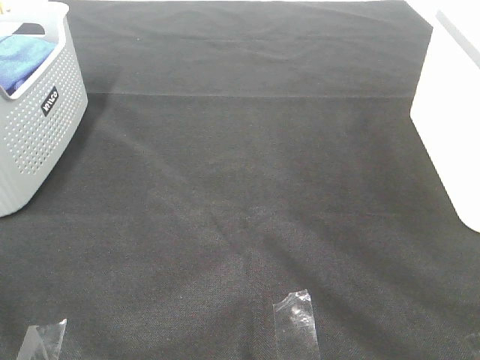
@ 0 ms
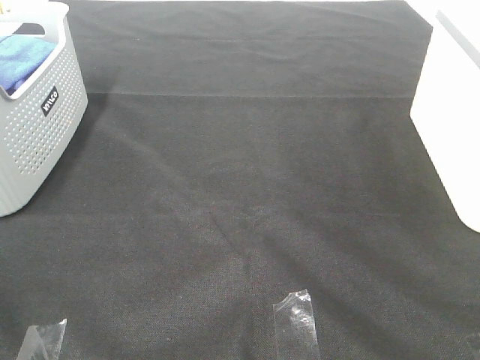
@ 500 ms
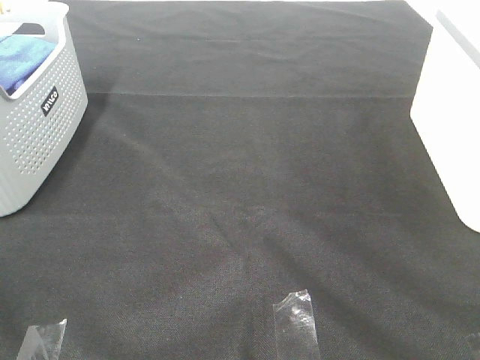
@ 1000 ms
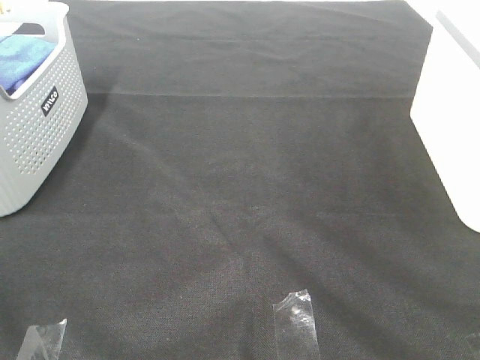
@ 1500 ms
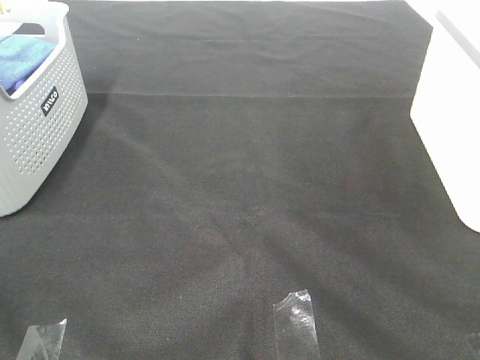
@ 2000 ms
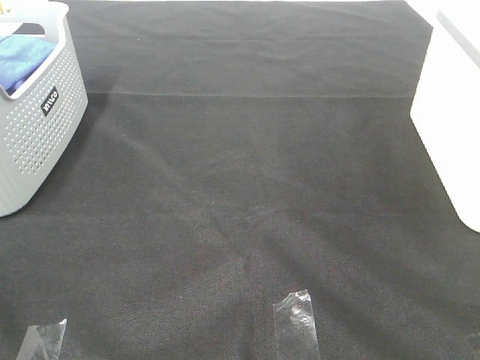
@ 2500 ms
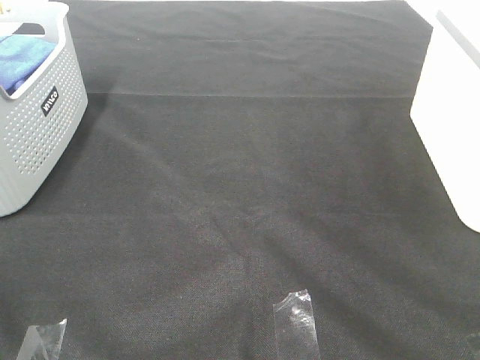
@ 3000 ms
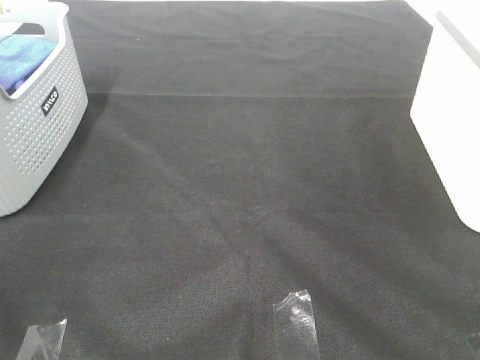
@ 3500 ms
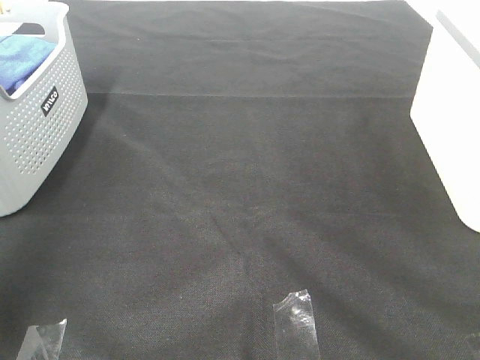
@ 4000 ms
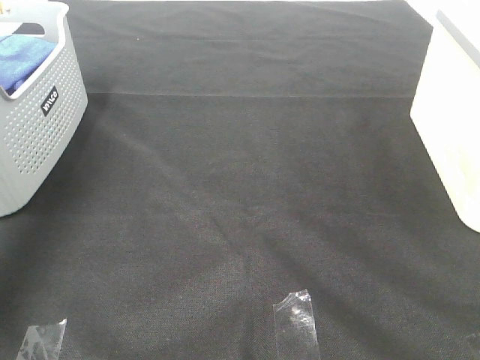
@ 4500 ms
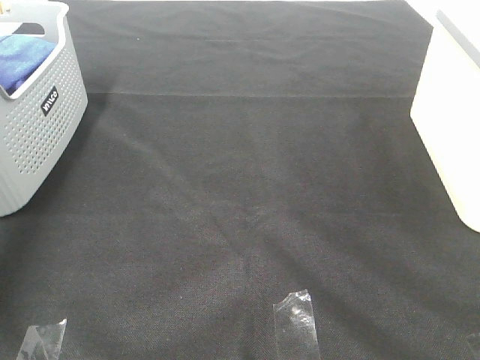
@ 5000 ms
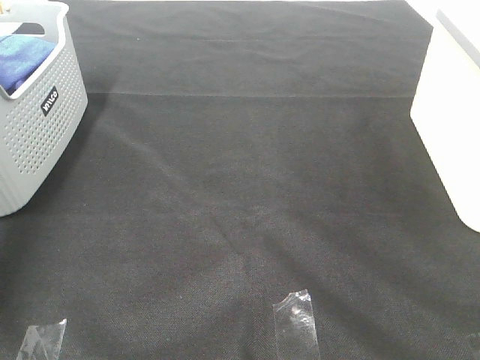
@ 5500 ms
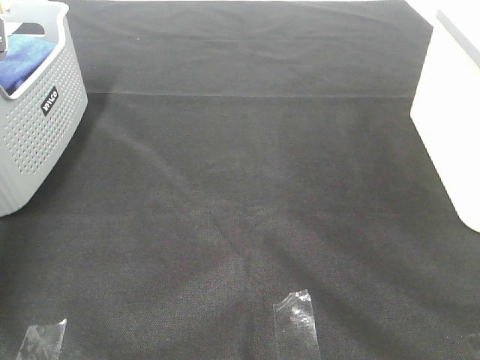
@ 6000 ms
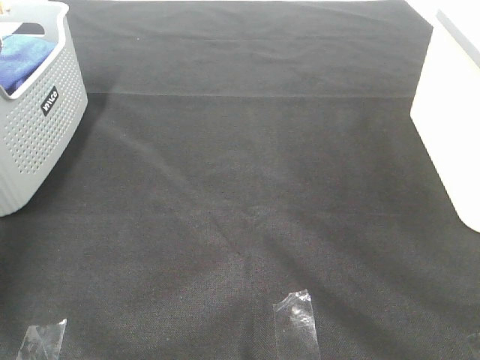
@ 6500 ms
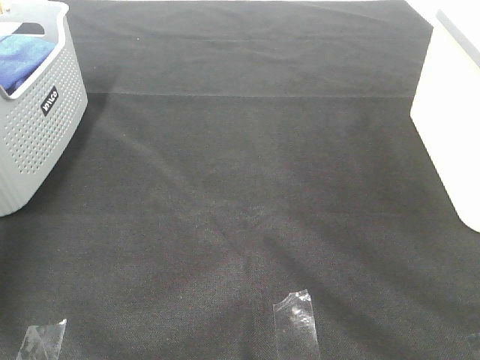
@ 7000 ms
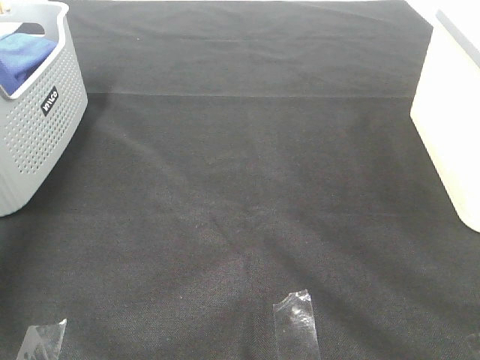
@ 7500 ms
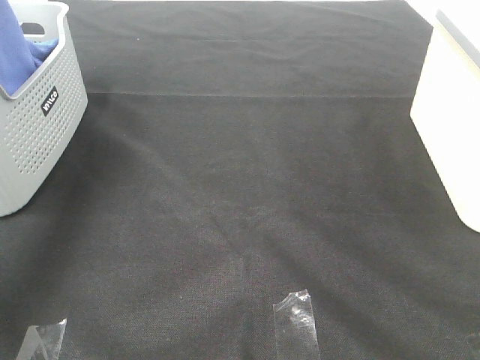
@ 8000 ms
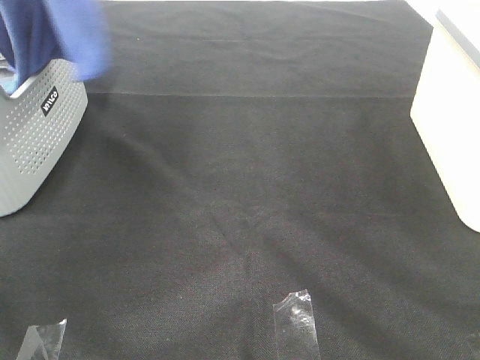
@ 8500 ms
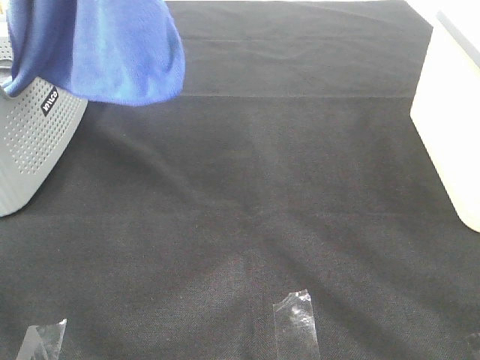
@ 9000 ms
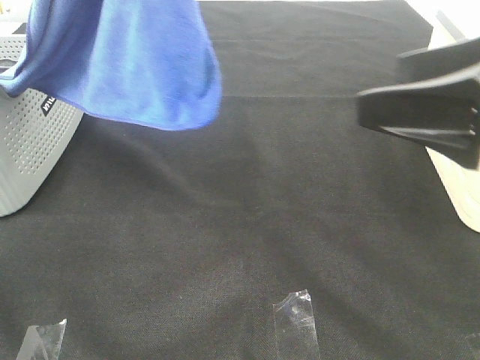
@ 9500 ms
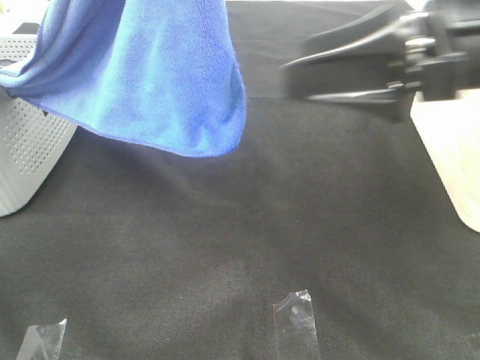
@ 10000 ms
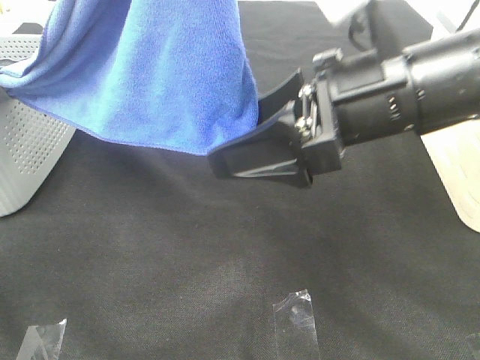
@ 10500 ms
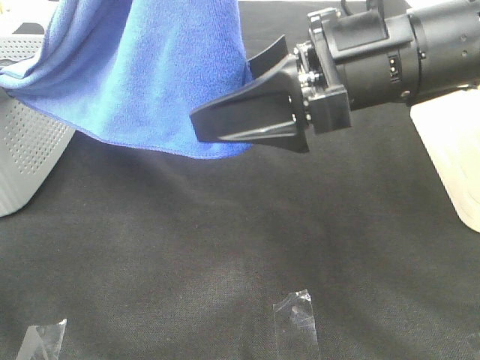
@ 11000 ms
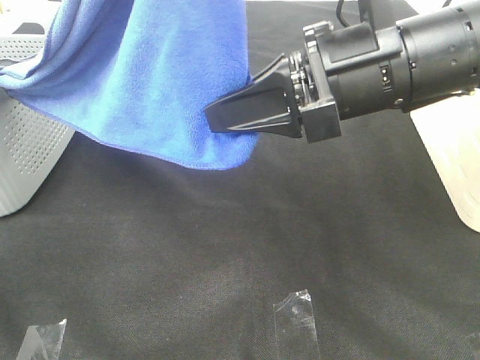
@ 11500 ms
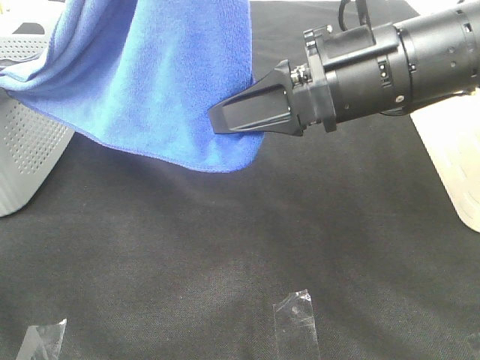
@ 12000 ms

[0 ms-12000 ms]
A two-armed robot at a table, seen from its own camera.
Task of the whole recording: Remove the towel and place it.
Step, 8500 ms to 11000 ms: Right hand: grab a corner of the blue towel and straighten it.
0 ms to 2000 ms: Both grippers stay put.
2000 ms to 4000 ms: The left gripper is displaced forward and upward by about 20 cm.
4000 ms to 6000 ms: The left gripper moves forward and downward, some 35 cm.
6000 ms to 8000 ms: The left gripper heads upward, covering roughly 30 cm, and closes.
8000 ms to 10000 ms: The right gripper shifts about 25 cm forward and to the left. The left gripper goes approximately 25 cm to the right and backward.
10000 ms to 12000 ms: The right gripper shifts about 5 cm to the left, and closes up.

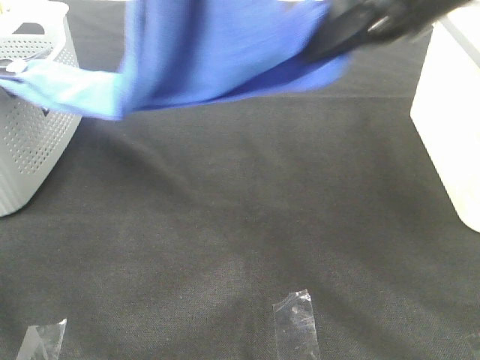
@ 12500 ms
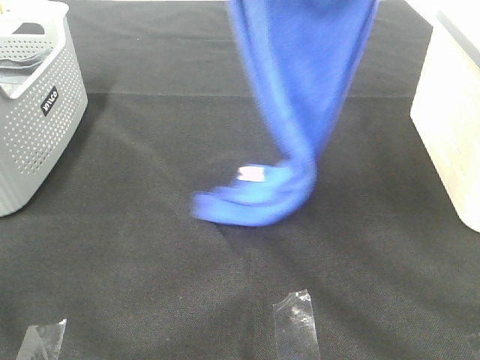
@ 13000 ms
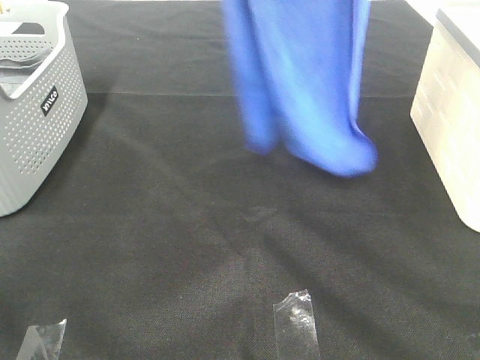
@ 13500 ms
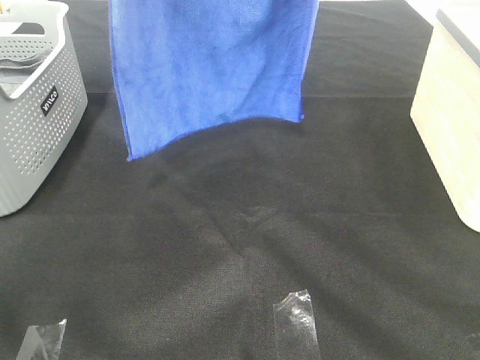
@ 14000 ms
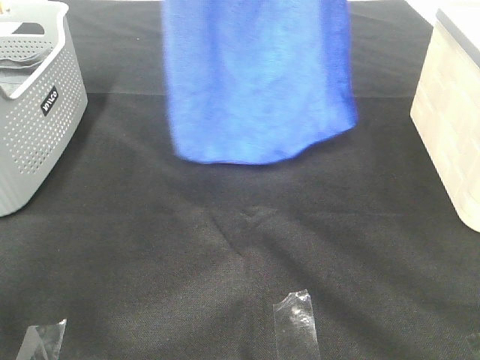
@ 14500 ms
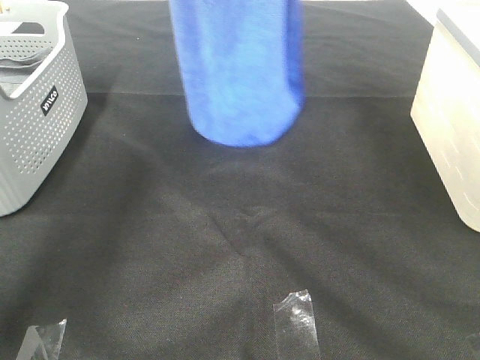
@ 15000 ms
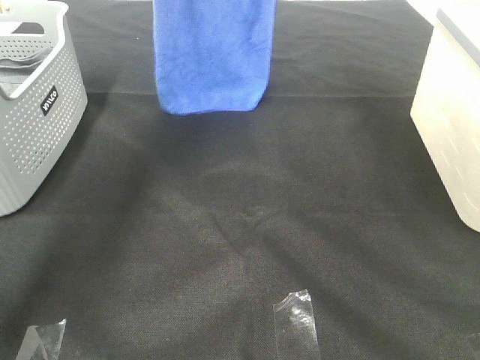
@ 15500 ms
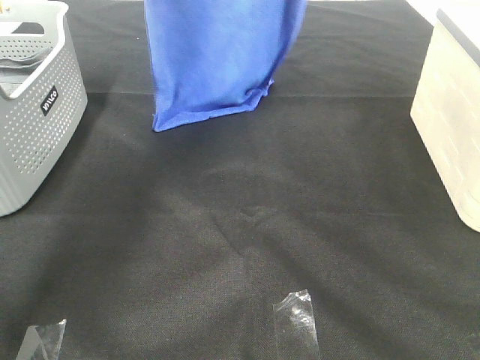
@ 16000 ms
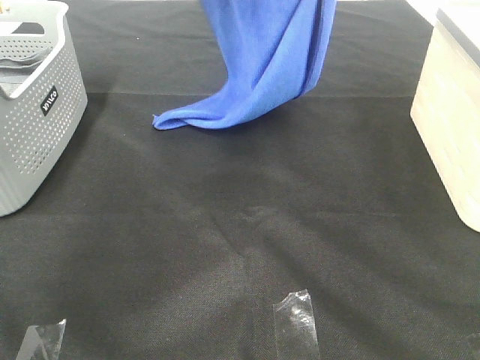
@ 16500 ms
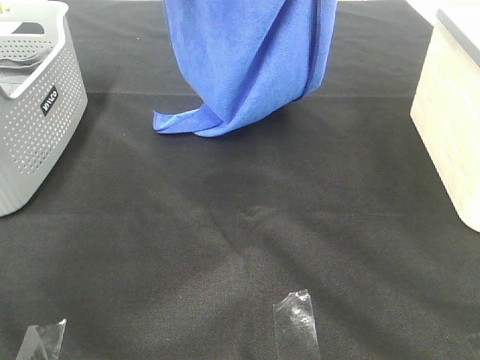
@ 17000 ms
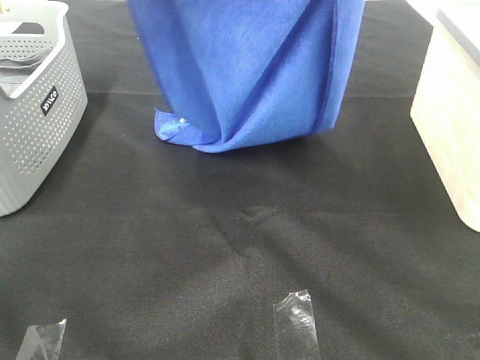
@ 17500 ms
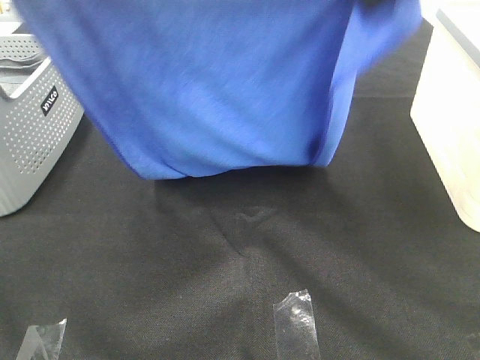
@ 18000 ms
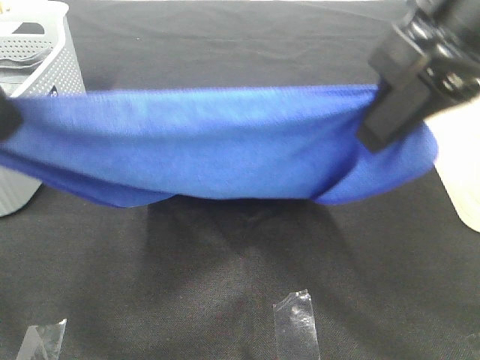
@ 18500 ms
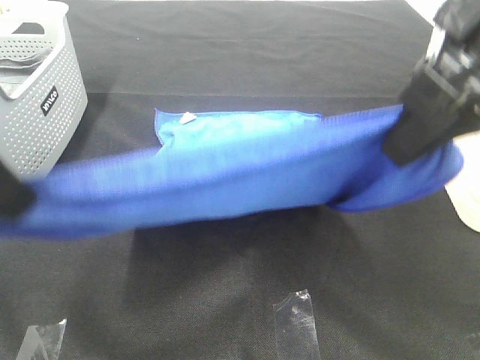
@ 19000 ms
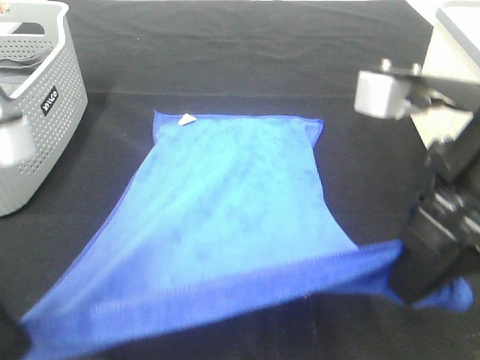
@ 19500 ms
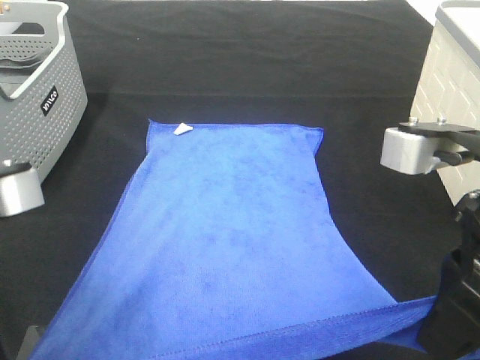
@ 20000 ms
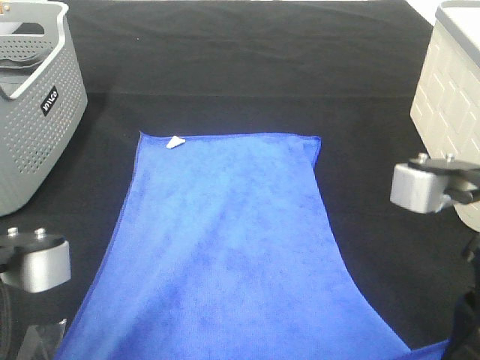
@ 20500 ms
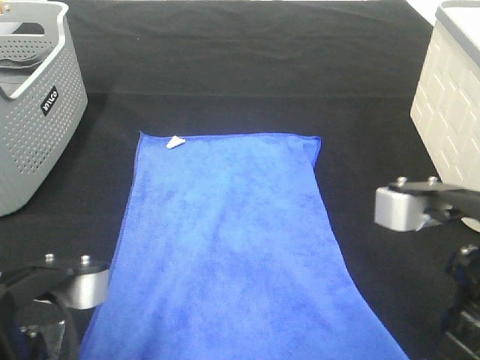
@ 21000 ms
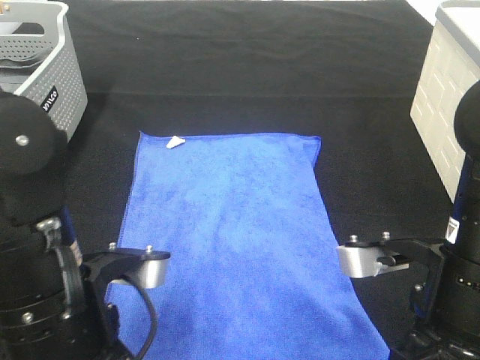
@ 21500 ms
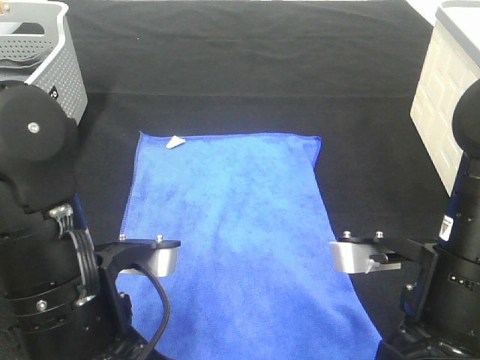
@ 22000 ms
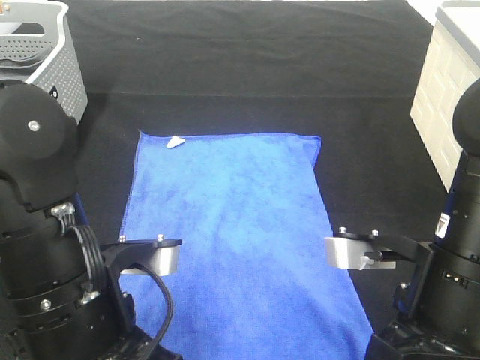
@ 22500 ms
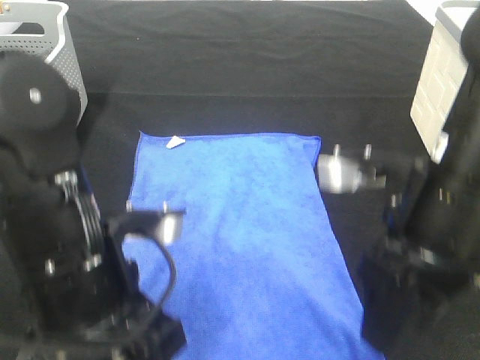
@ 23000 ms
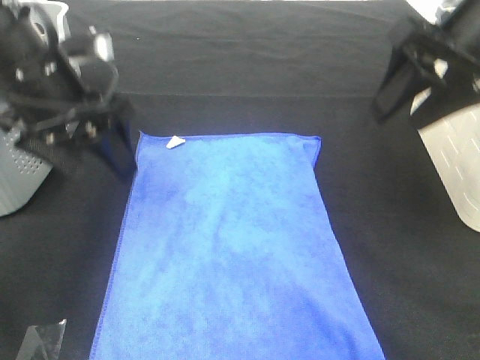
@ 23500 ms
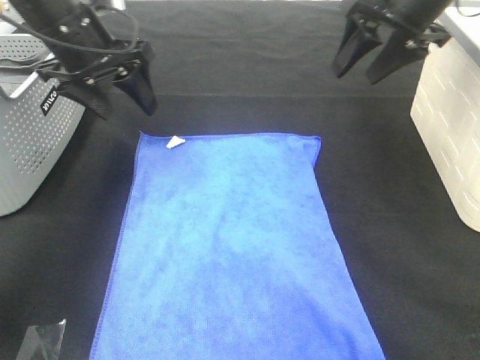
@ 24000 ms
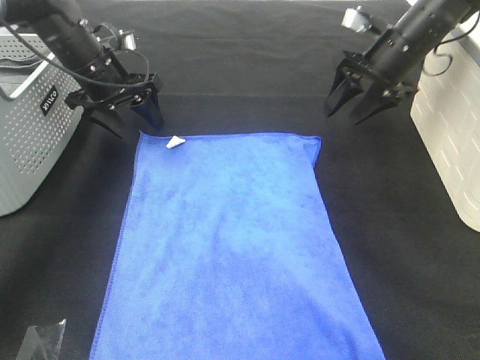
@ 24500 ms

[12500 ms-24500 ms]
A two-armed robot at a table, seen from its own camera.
Task of the whole recording: Remove the towel and place it.
Step, 12500 ms to 18000 ms: Left hand: spread the blue towel flat on the table.
Step, 12500 ms to 18000 ms: Right hand: spread the blue towel flat on the table.
12500 ms to 14500 ms: The left gripper heads forward, covering about 20 cm, while the right gripper travels upward and forward by about 20 cm.
14500 ms to 16500 ms: The right gripper goes some 5 cm downward, and moves some 10 cm forward and comes back. The left gripper travels downward and to the right by about 10 cm, and goes forward and returns, some 10 cm each way.
16500 ms to 18500 ms: The left gripper is displaced backward and to the left by approximately 30 cm; the right gripper is displaced backward and downward by roughly 25 cm.
18500 ms to 20500 ms: The two grippers go some 15 cm downward and backward.
20500 ms to 22500 ms: The right gripper shifts about 5 cm downward, and opens up, while the left gripper is displaced downward, forward and to the right by about 10 cm, and opens up.
22500 ms to 24500 ms: The grippers both shift forward by about 35 cm.

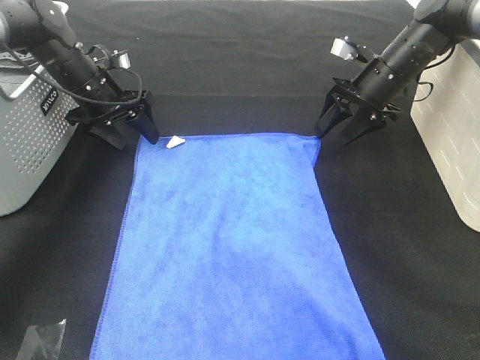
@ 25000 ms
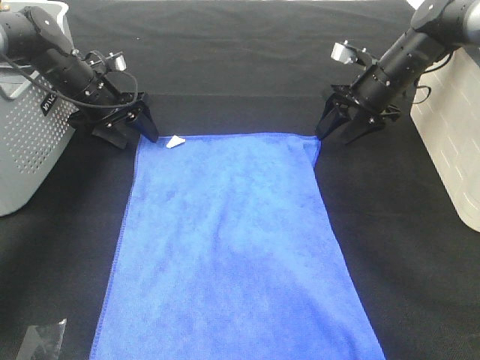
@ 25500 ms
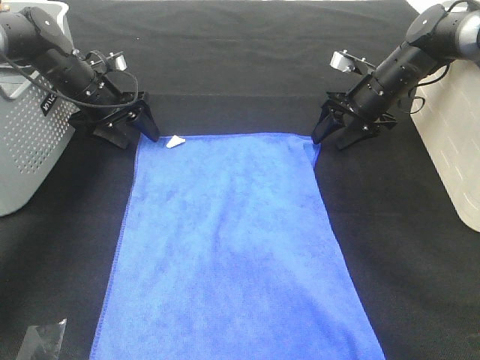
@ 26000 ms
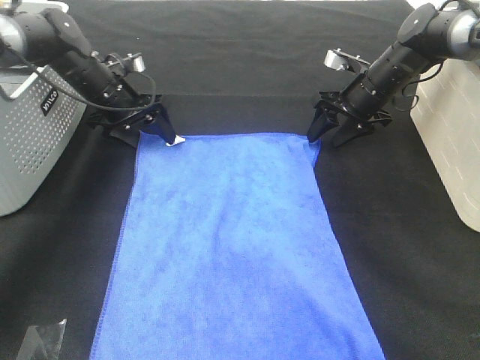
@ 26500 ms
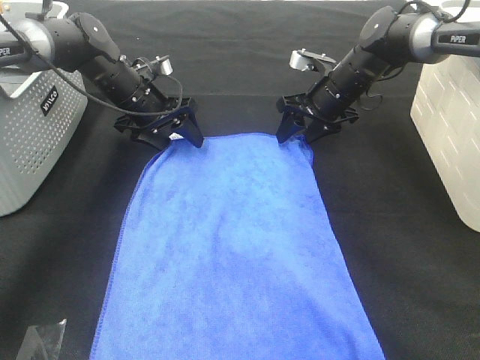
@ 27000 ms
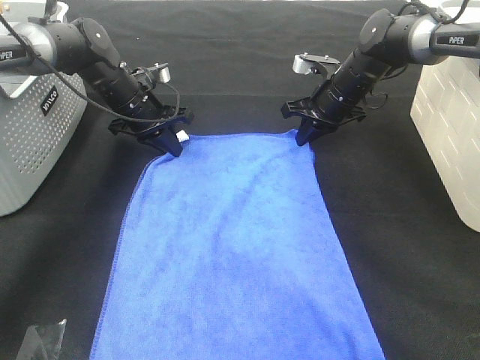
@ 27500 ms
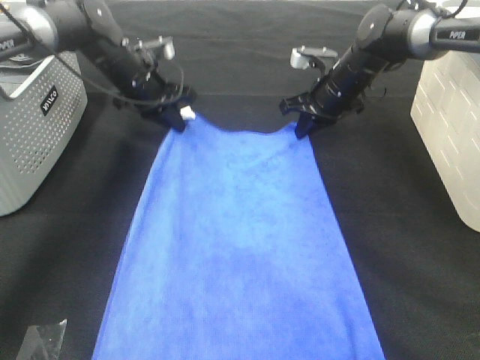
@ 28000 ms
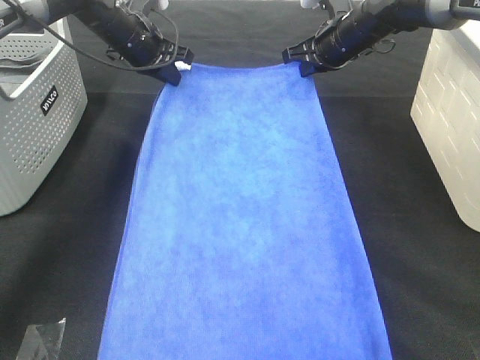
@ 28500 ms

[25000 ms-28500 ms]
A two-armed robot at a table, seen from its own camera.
Task of the whole recording: Remove the towel and place it.
25000 ms to 27000 ms: The right gripper heads to the left, covering approximately 5 cm. Meanwhile the left gripper heads to the right, covering some 5 cm.
27000 ms to 28500 ms: Both grippers travel together upward, approximately 10 cm. The right gripper closes its fingers. The left gripper closes its fingers.
